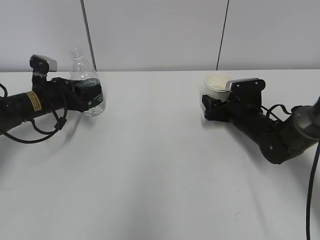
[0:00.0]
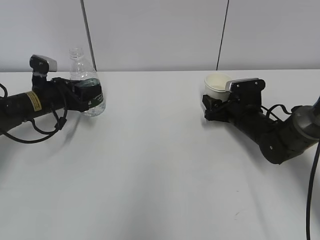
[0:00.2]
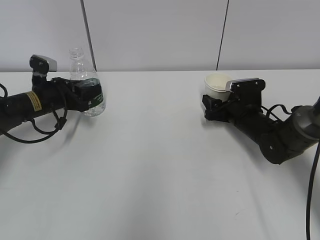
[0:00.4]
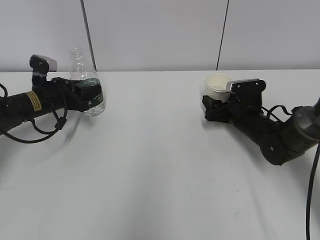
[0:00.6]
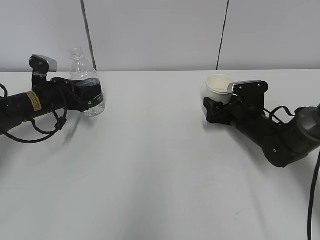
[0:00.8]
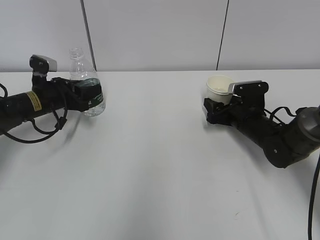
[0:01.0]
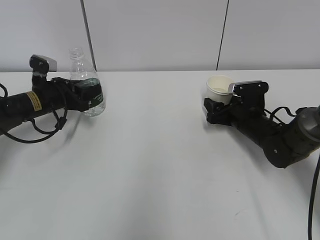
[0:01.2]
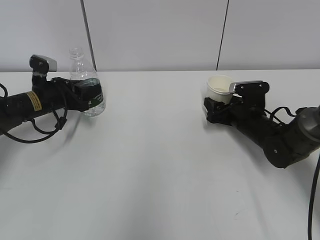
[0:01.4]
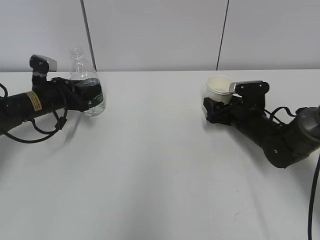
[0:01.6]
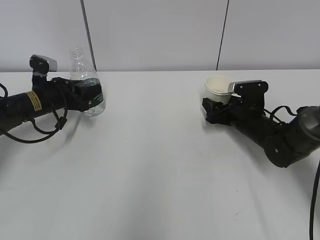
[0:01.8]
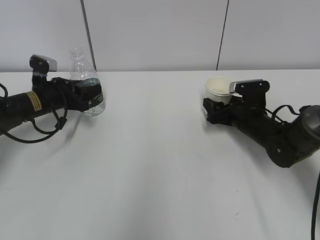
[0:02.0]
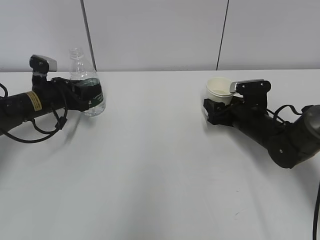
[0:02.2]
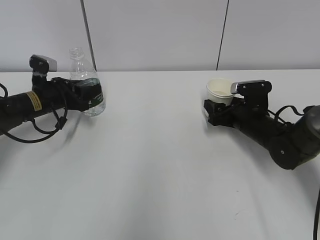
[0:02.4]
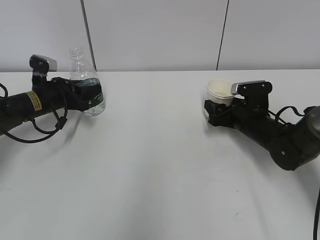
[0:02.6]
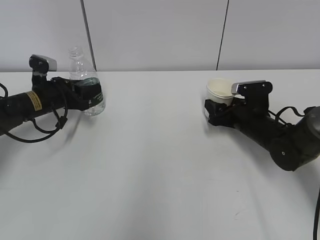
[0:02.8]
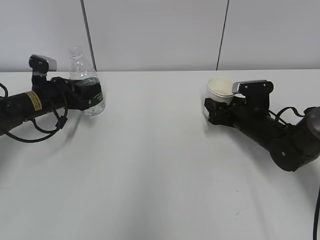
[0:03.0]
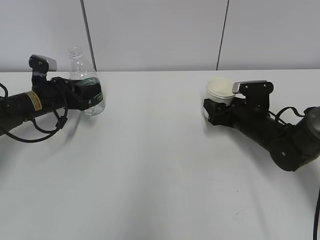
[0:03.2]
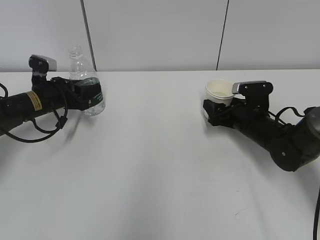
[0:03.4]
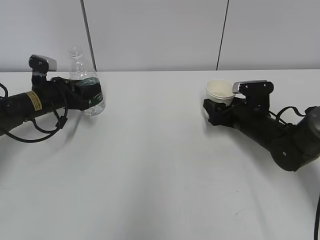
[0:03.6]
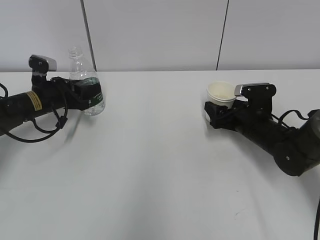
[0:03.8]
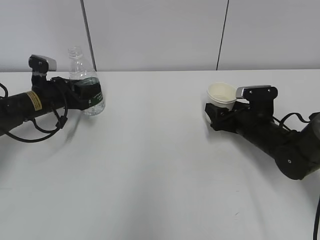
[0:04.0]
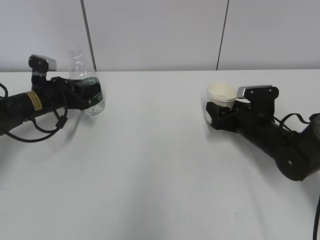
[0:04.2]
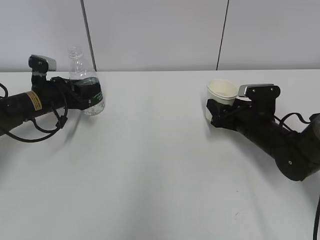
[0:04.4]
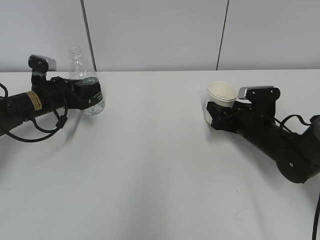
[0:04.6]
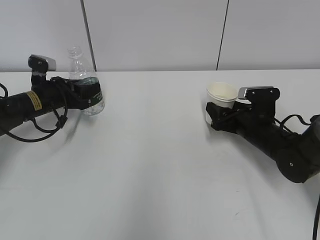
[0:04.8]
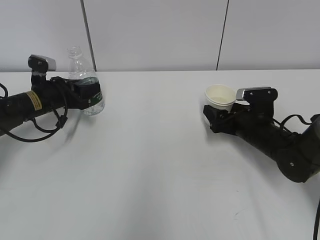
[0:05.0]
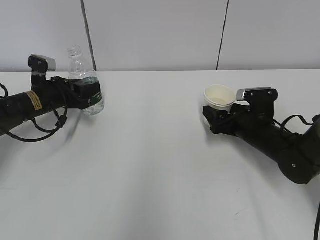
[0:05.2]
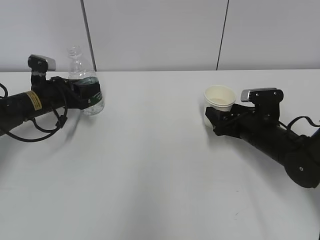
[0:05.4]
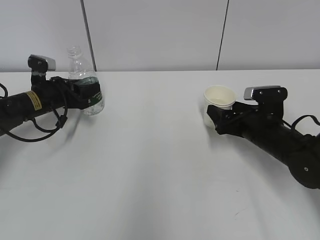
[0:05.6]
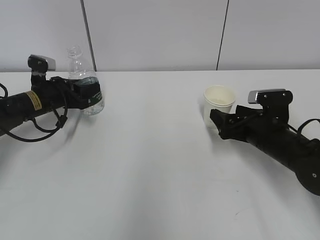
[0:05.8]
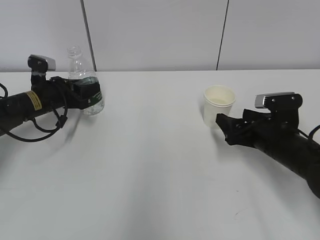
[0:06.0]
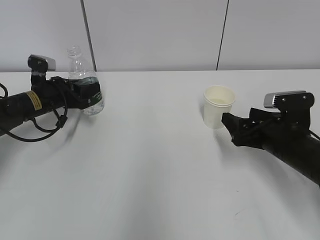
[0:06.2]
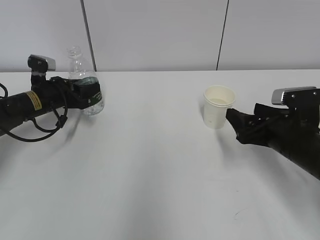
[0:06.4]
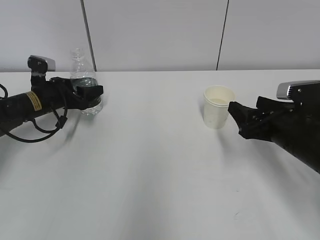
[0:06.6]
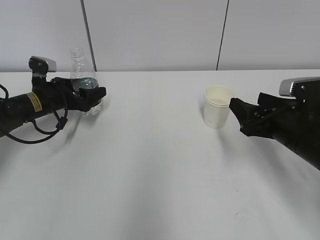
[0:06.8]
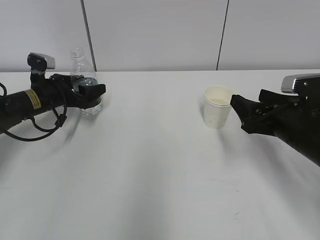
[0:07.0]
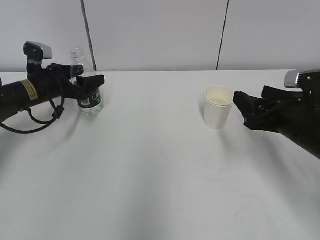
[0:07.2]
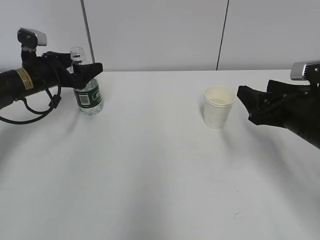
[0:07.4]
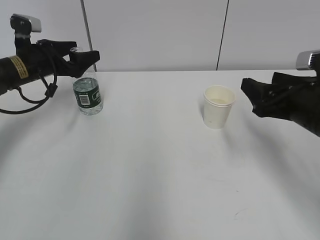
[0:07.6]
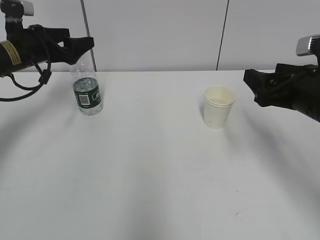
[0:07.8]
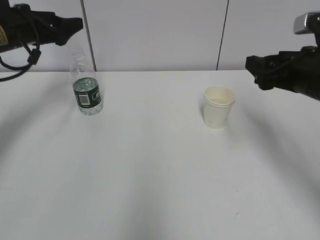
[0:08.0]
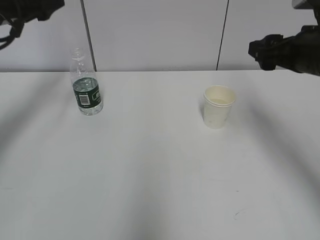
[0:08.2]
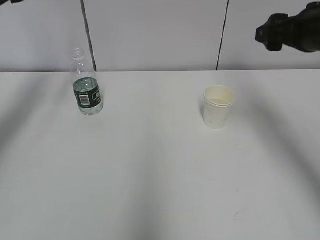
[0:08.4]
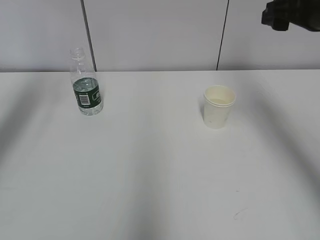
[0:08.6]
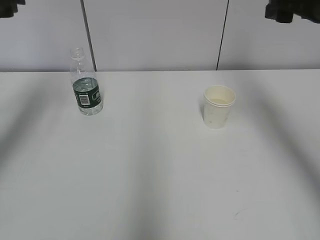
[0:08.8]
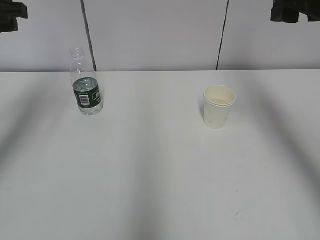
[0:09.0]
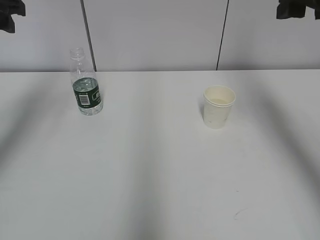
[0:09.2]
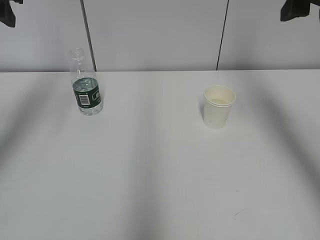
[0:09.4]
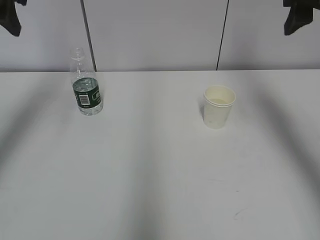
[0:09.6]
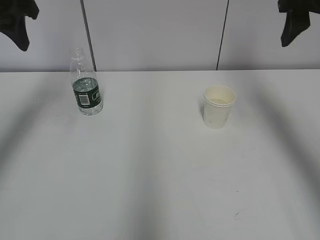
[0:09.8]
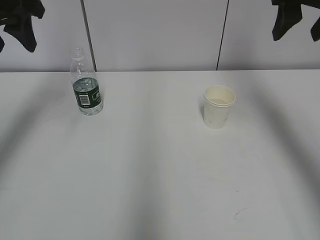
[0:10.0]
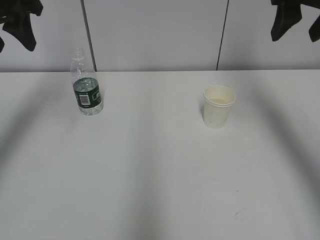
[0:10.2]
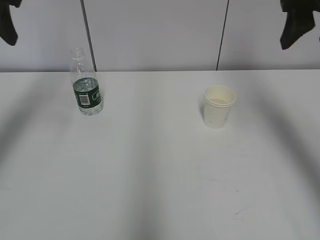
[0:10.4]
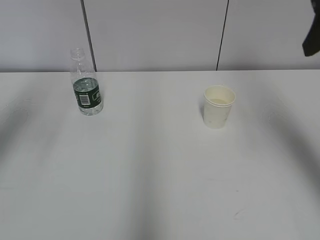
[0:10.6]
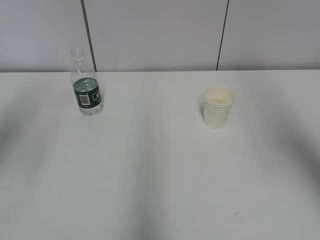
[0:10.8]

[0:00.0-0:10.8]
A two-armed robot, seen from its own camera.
0:00.0 to 0:01.6: The two grippers keep their place.
0:01.6 to 0:03.0: There are only small adjustments of the grippers.
0:03.0 to 0:04.6: The right gripper opens, then closes once more.
0:04.6 to 0:06.2: The right gripper shifts some 10 cm backward, and opens up.
0:06.2 to 0:07.8: The two grippers go about 10 cm upward. The left gripper opens up.
0:07.8 to 0:09.2: The left gripper shifts roughly 15 cm upward and backward, and closes its fingers. The right gripper is displaced upward by approximately 15 cm.
0:09.2 to 0:10.8: Both grippers move backward, approximately 15 cm.

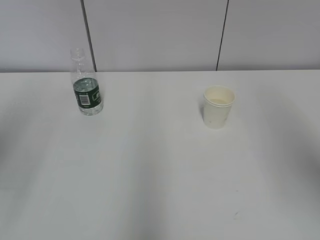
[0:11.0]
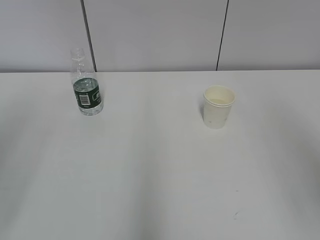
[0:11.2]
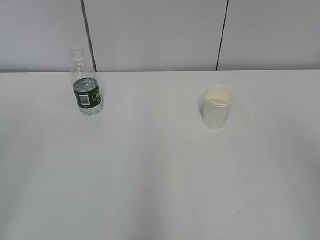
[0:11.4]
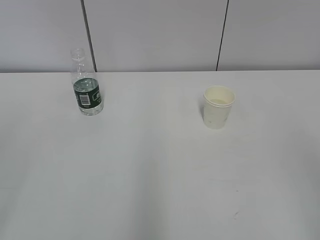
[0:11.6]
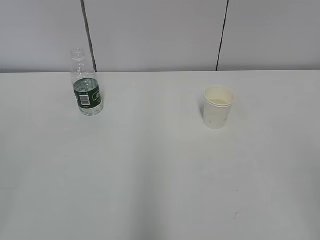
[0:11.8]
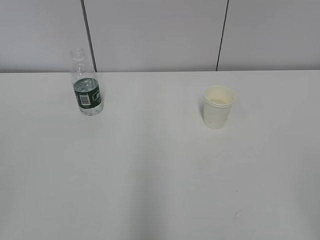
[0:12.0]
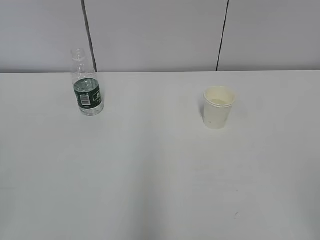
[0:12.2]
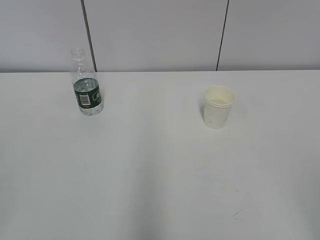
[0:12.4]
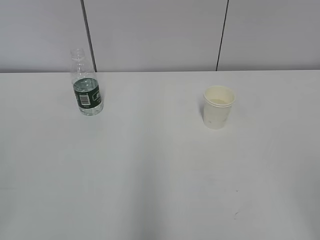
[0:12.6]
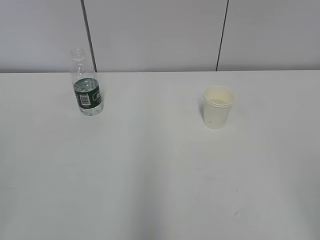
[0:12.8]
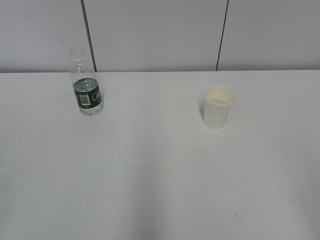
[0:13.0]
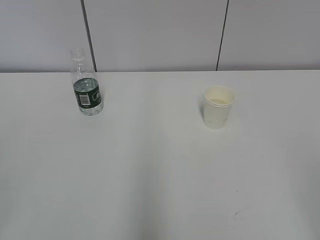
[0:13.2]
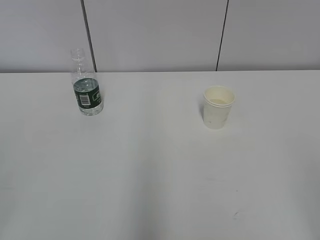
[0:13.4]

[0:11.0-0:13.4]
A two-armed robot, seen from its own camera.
0:11.0 to 0:12.2: Both grippers travel together backward and downward, approximately 20 cm.
